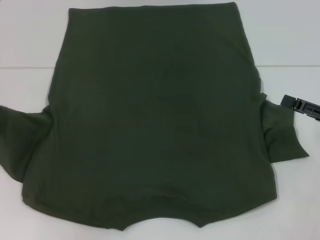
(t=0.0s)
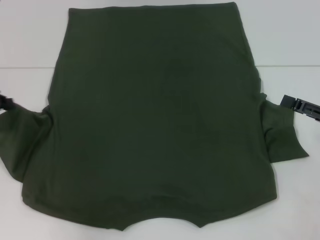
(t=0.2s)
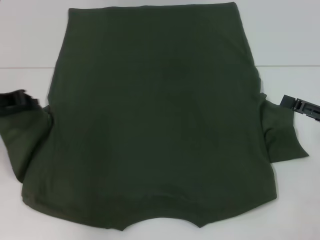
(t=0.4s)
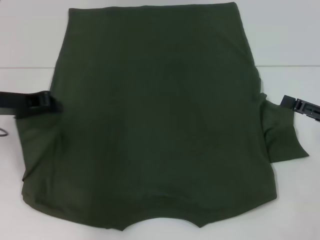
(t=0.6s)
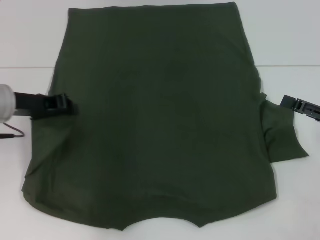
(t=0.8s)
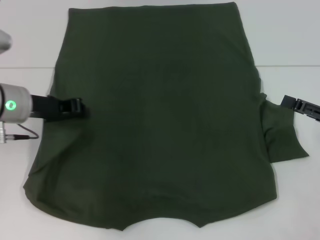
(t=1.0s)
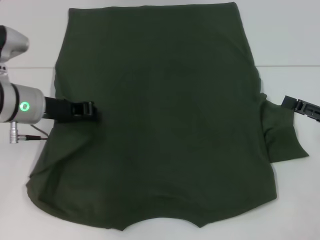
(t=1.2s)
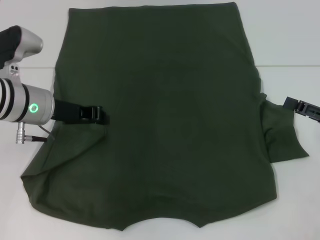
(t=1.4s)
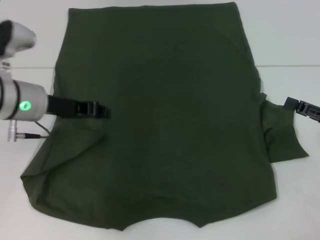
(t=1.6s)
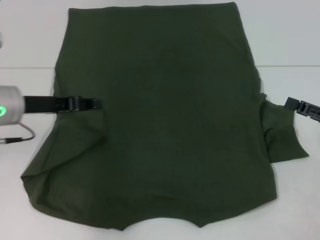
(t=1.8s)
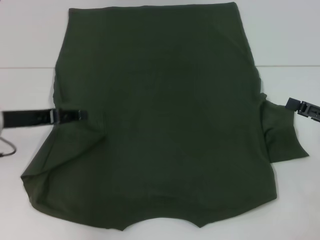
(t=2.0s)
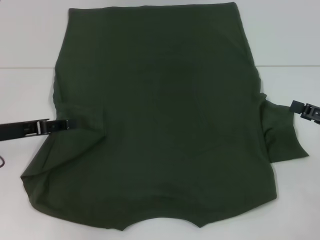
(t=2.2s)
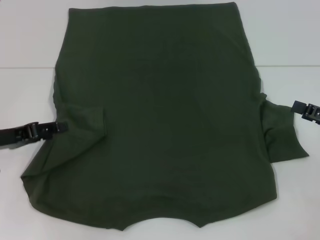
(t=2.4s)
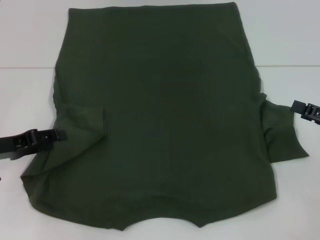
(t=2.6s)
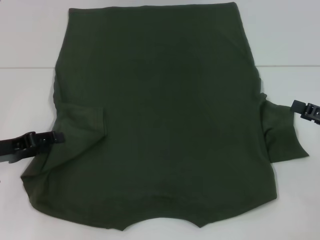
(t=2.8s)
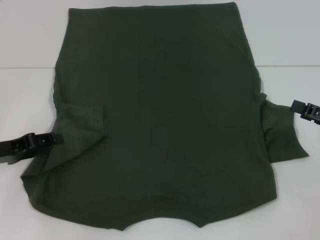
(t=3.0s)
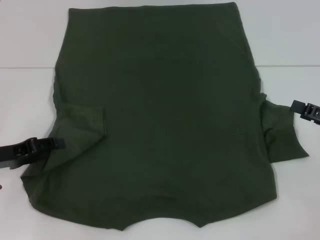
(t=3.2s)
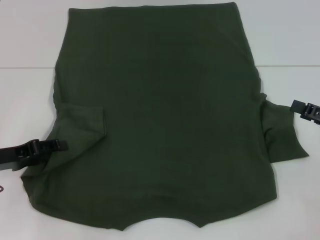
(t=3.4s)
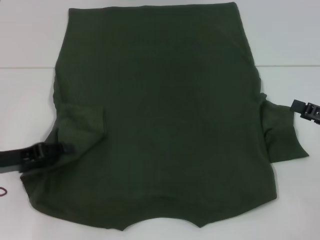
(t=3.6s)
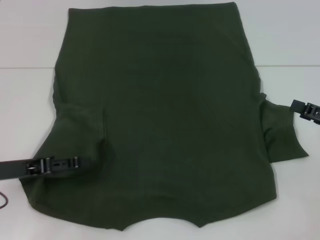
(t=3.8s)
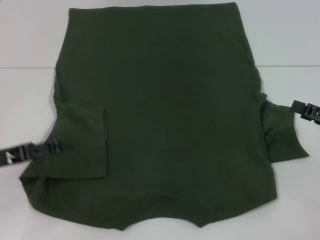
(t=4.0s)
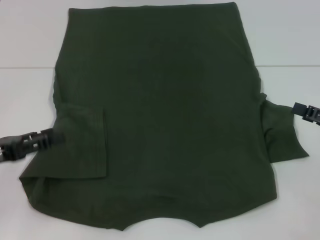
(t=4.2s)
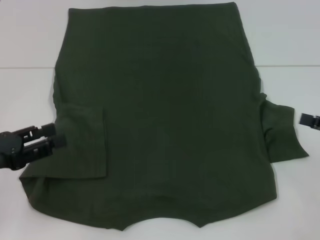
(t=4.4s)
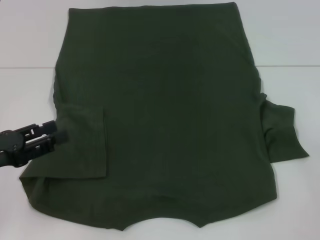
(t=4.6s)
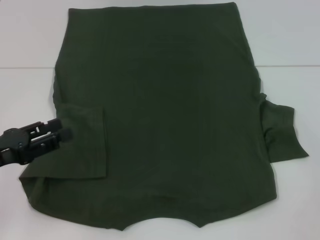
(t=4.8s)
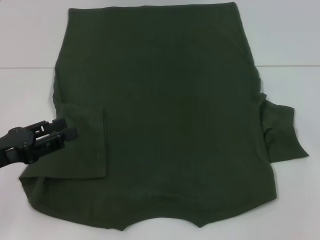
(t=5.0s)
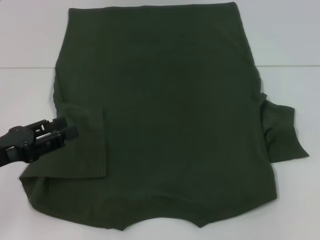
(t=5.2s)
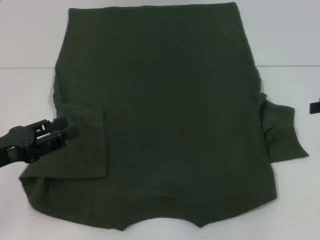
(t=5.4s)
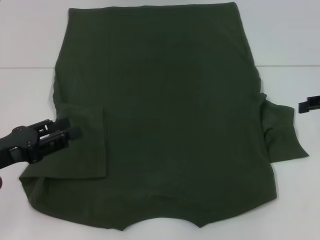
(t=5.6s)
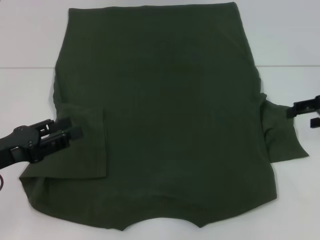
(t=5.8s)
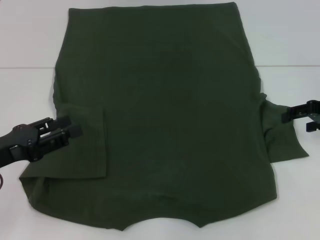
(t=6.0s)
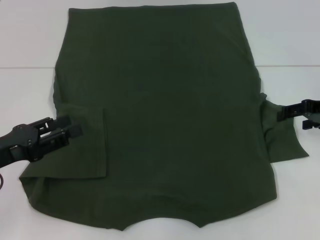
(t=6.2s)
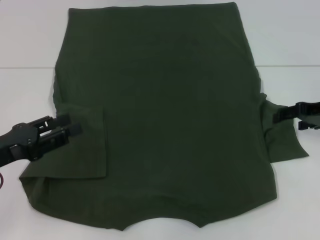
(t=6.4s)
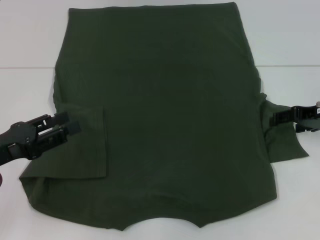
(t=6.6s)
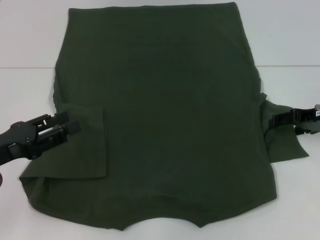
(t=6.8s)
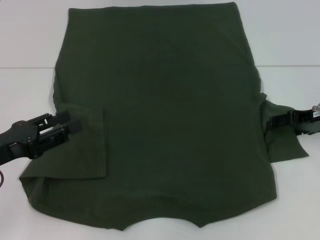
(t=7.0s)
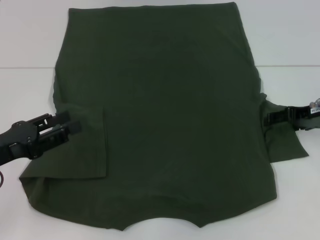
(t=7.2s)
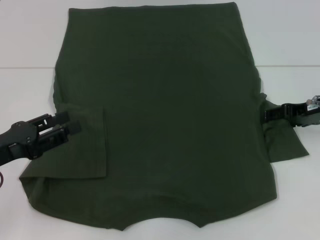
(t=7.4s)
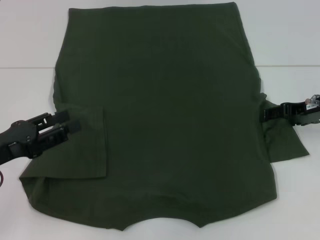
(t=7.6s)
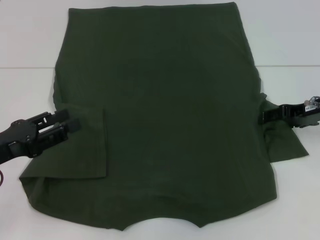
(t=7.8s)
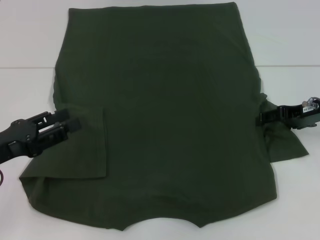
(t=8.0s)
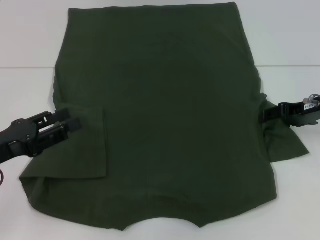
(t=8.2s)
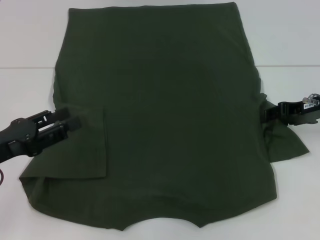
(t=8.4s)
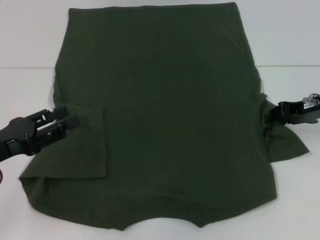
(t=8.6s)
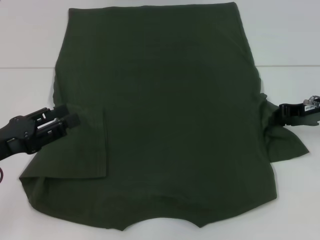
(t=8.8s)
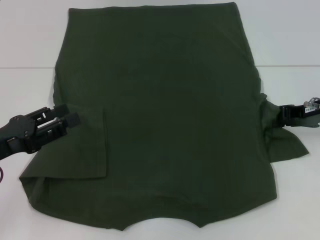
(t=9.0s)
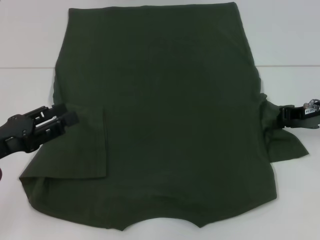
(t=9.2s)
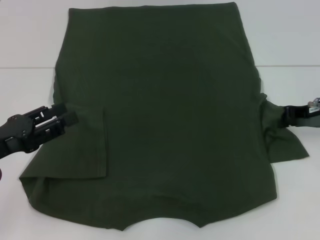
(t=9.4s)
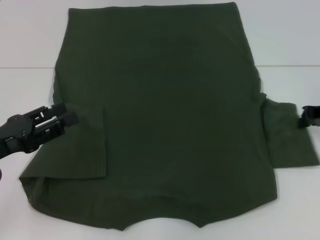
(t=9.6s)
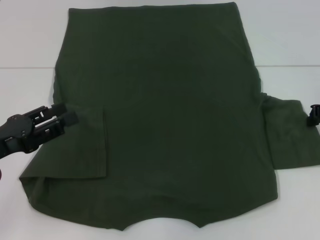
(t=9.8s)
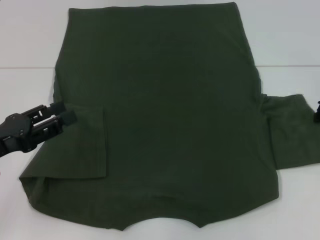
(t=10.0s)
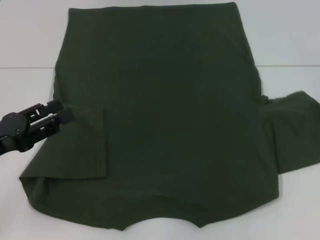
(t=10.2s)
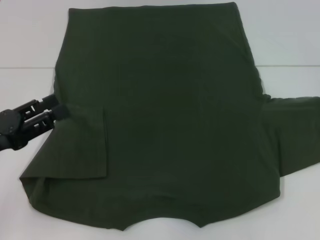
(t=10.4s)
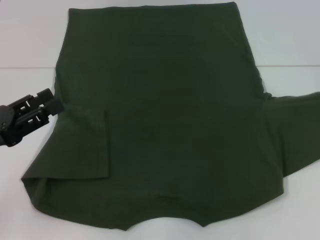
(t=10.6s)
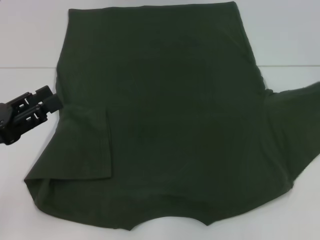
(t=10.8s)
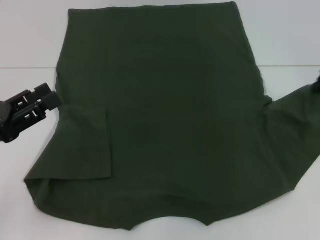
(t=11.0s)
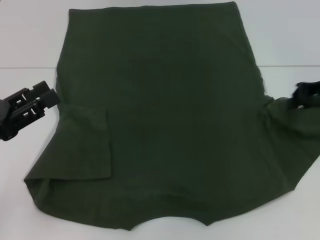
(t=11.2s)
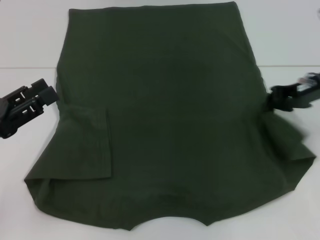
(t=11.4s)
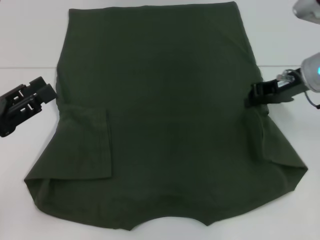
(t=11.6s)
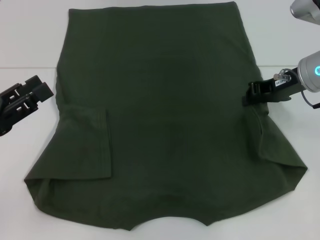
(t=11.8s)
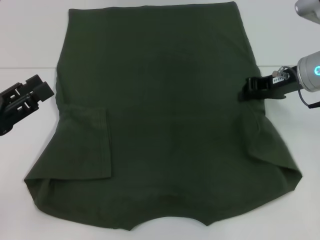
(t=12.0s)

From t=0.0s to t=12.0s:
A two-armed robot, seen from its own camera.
From t=0.0s to t=1.6s: The left gripper is displaced to the right by roughly 15 cm.
From t=1.6s to t=3.0s: The left gripper travels to the left, backward and downward by about 15 cm, and opens up.
From t=3.0s to t=4.4s: The left gripper is displaced backward by approximately 5 cm.
From t=4.4s to t=6.0s: The right gripper shifts about 10 cm forward.
From t=6.0s to t=7.6s: The grippers move only a little.
From t=7.6s to t=9.0s: The right gripper closes.
From t=9.0s to t=10.4s: The right gripper goes some 5 cm to the right.
From t=10.4s to t=12.0s: The right gripper travels to the left by roughly 15 cm.

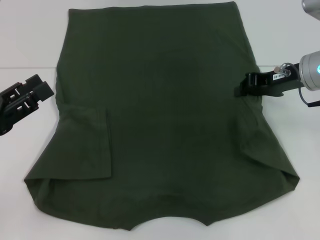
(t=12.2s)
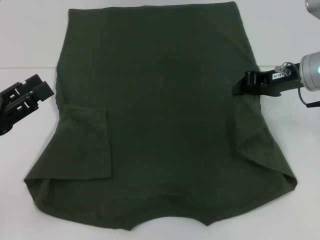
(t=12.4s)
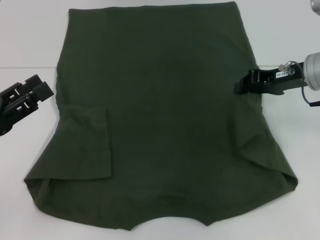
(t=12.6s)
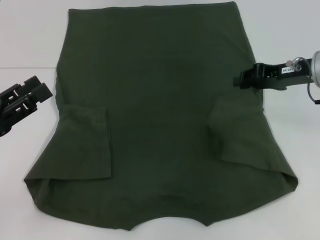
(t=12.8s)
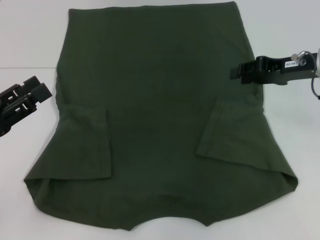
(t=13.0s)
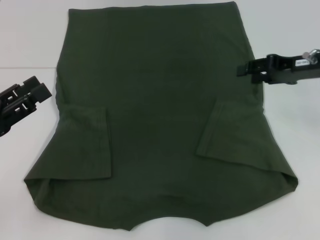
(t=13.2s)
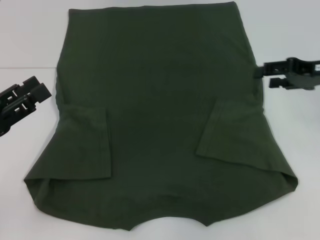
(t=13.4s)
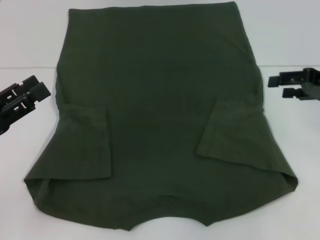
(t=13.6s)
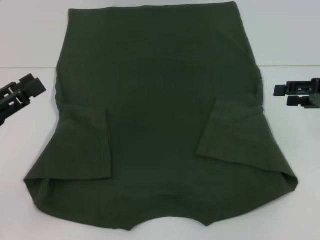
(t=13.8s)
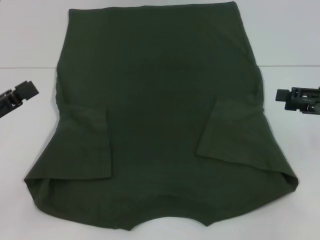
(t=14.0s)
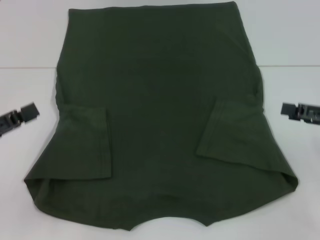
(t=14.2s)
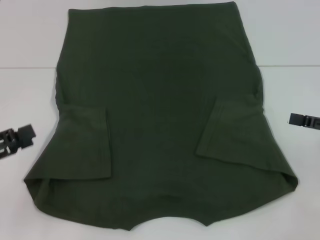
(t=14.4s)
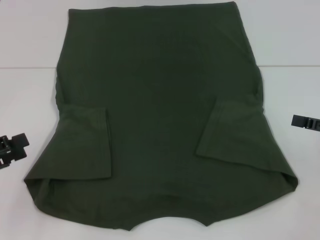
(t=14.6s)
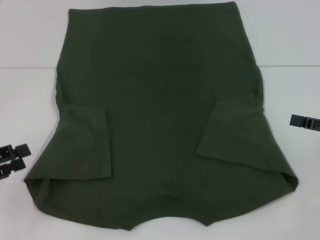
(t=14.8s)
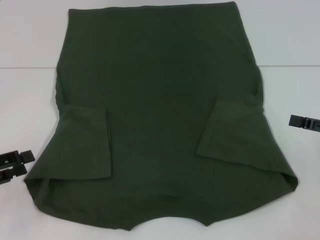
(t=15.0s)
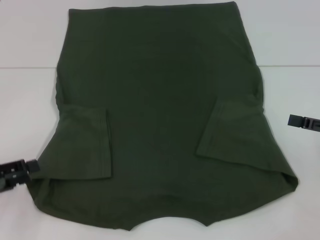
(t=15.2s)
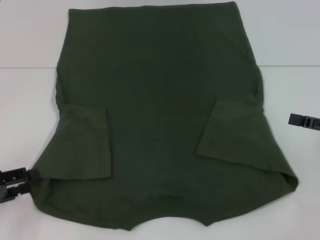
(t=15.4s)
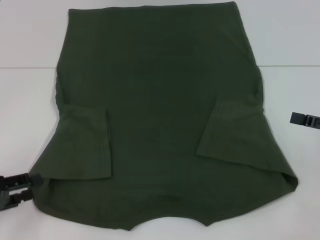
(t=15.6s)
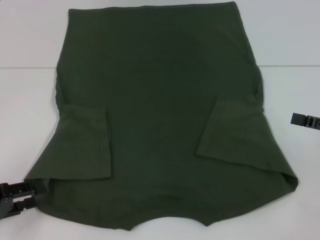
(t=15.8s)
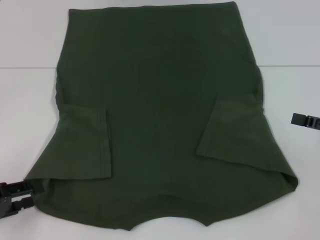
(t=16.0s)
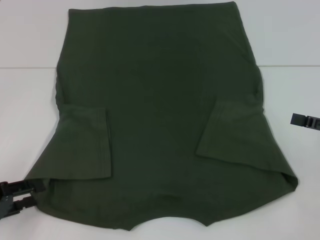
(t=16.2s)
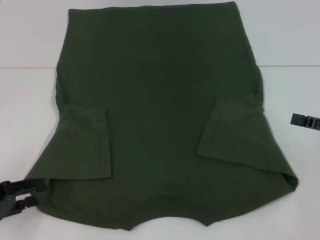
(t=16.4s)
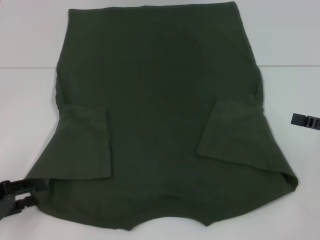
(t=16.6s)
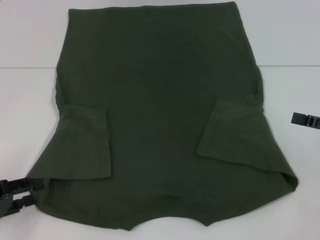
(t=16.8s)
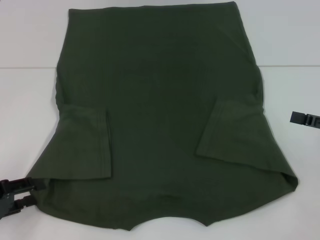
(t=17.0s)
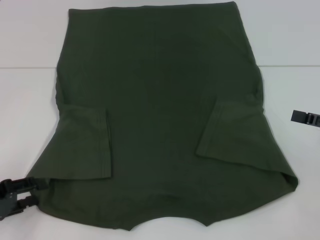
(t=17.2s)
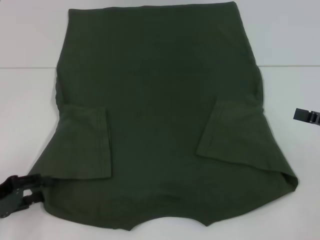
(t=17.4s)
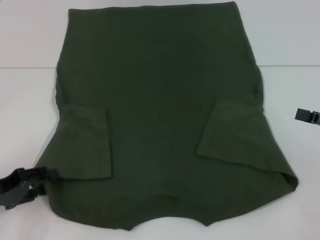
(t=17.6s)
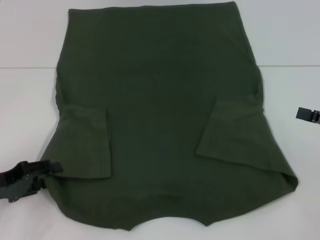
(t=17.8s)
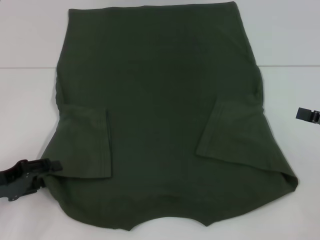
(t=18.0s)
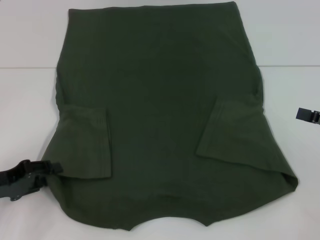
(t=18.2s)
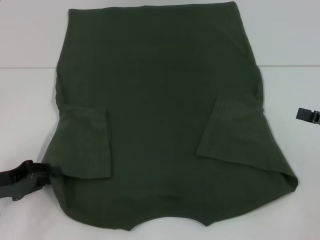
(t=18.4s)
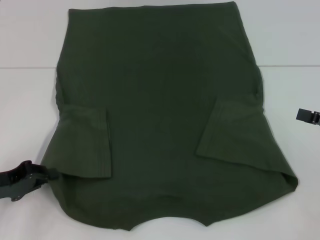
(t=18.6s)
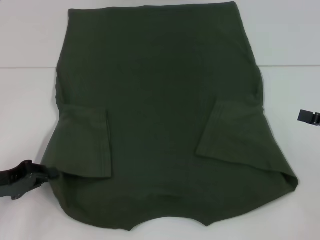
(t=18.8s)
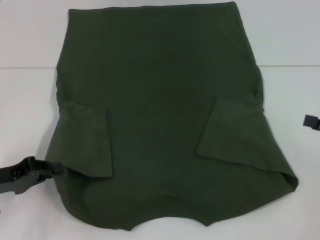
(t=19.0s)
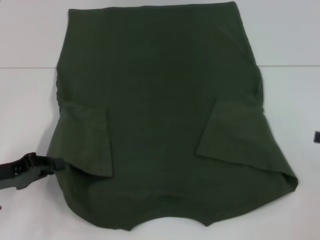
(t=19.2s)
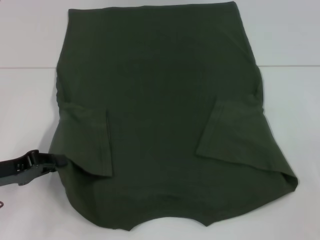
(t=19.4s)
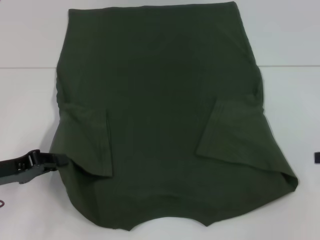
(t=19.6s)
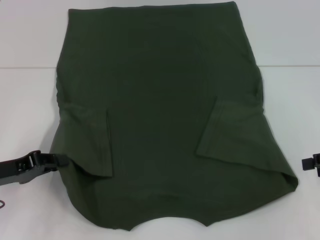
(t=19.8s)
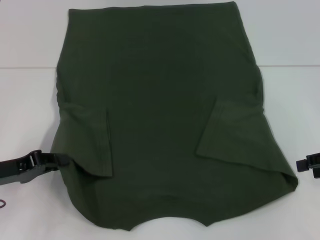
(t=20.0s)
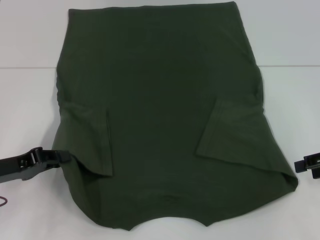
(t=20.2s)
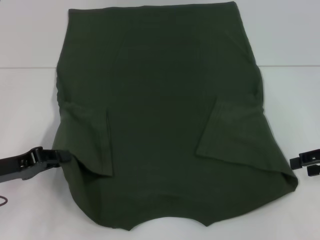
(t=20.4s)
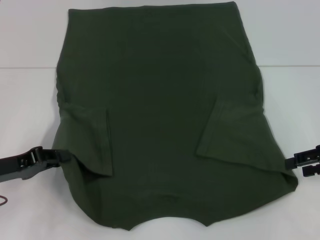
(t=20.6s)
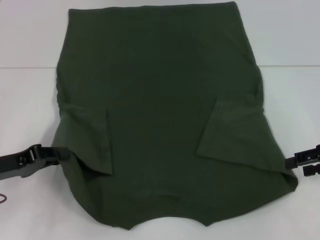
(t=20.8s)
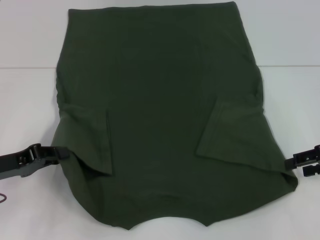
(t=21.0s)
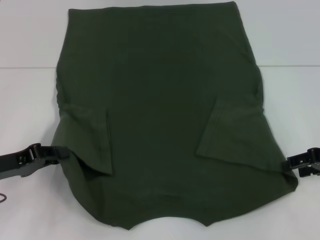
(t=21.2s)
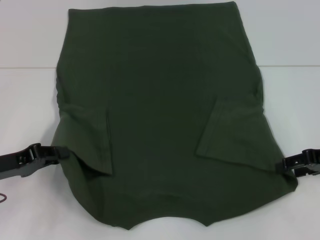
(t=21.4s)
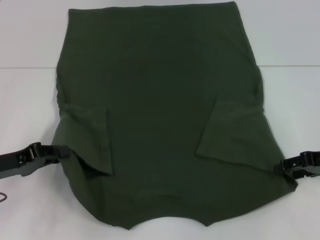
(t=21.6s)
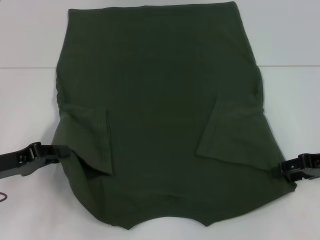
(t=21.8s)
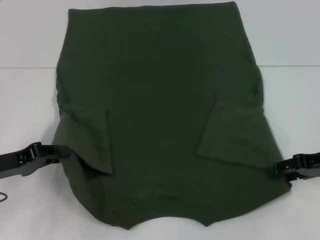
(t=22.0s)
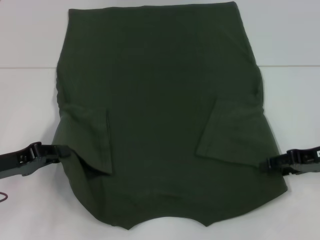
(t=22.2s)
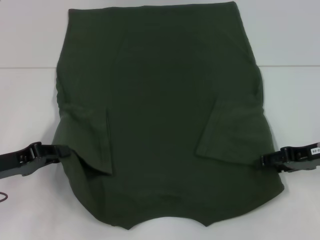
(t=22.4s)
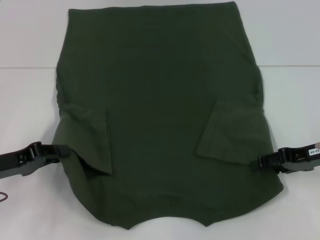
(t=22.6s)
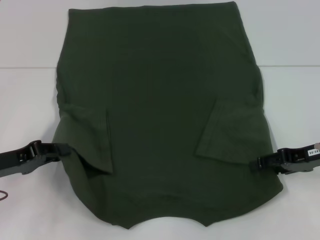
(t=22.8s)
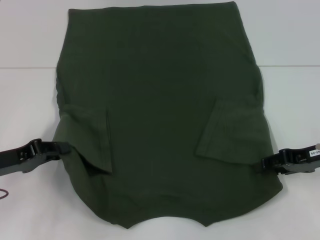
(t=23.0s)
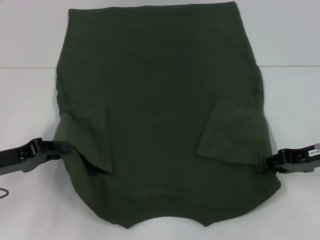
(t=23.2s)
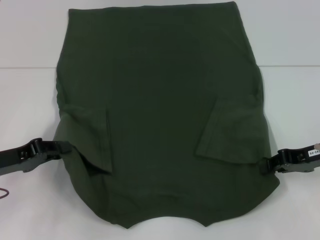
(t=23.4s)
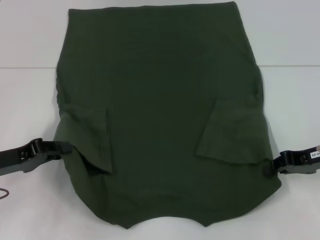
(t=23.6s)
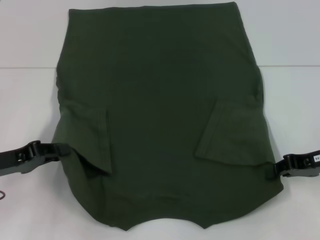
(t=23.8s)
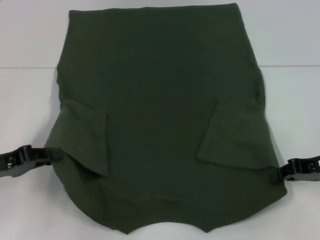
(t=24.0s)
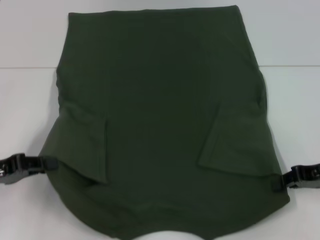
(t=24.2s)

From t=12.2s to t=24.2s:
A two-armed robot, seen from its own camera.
Step, from t=13.2s to t=18.8s: Grab the bottom left corner with your left hand.
Step, from t=19.0s to t=23.6s: Grab the bottom right corner with your right hand.
From t=12.2s to t=13.8s: The right gripper heads to the right and backward, covering approximately 10 cm, and opens its fingers.
From t=13.8s to t=15.2s: The left gripper heads downward, covering about 5 cm. Meanwhile the right gripper travels backward by about 5 cm.
From t=15.2s to t=18.2s: The grippers move only a little.
From t=18.2s to t=19.8s: The left gripper closes.
From t=19.8s to t=21.2s: The grippers make only small movements.
From t=21.2s to t=22.6s: The grippers move only a little.
From t=22.6s to t=24.2s: The right gripper closes.
